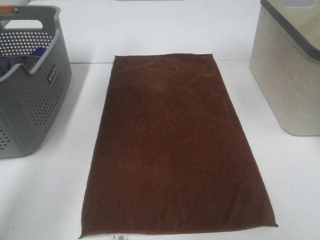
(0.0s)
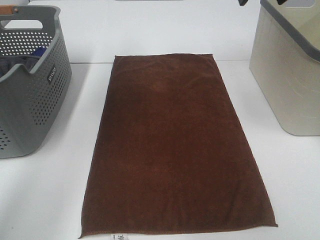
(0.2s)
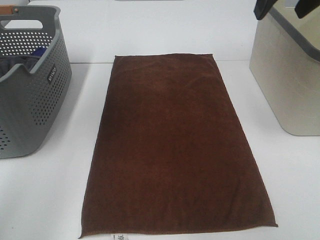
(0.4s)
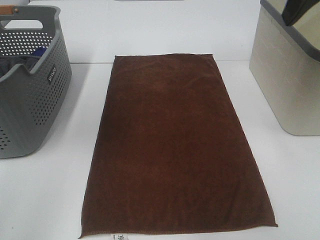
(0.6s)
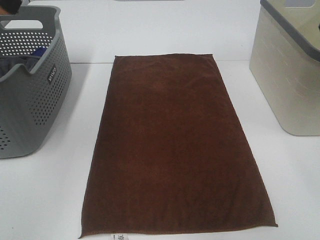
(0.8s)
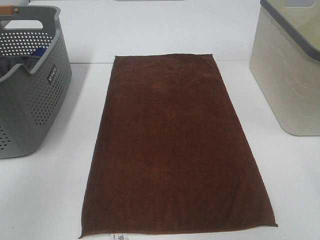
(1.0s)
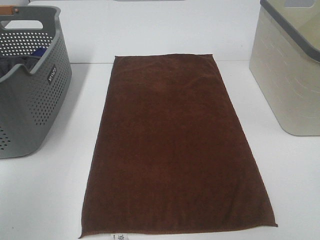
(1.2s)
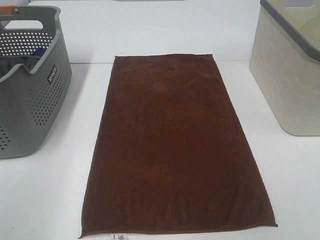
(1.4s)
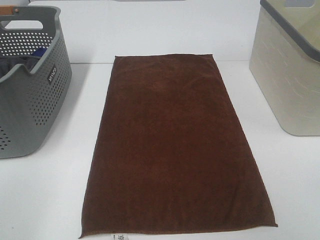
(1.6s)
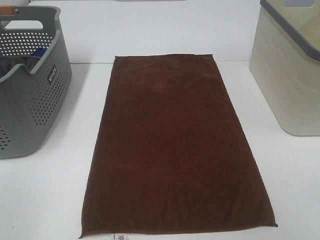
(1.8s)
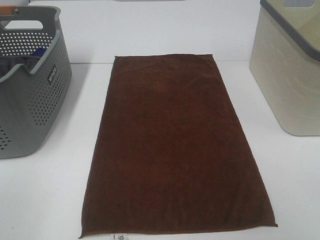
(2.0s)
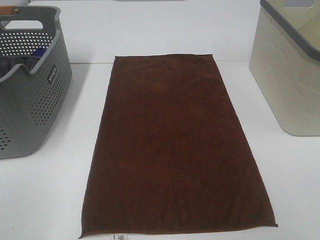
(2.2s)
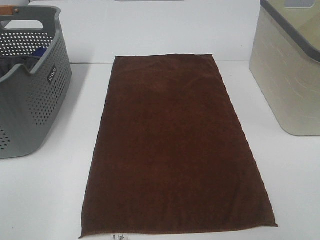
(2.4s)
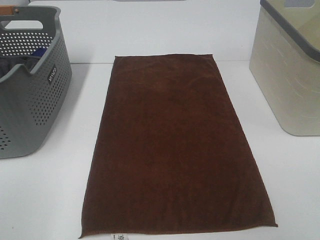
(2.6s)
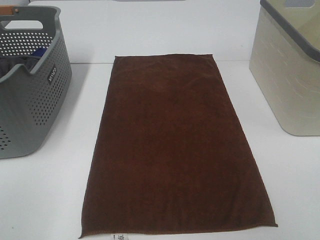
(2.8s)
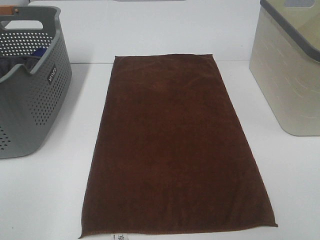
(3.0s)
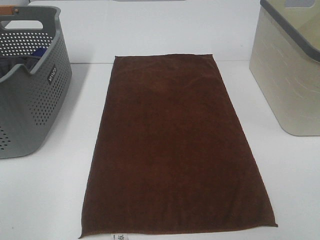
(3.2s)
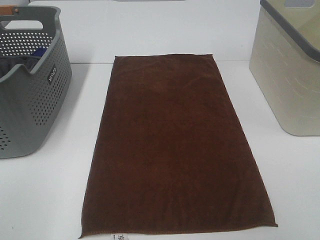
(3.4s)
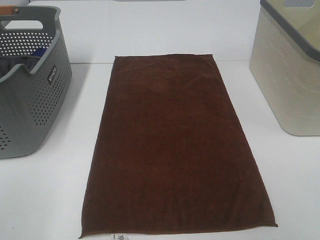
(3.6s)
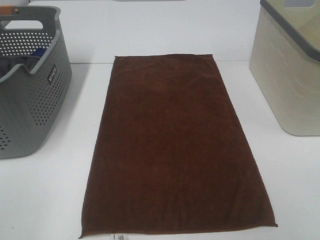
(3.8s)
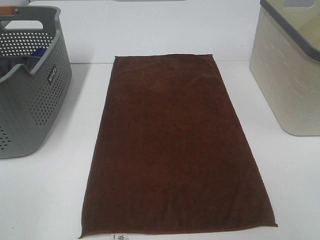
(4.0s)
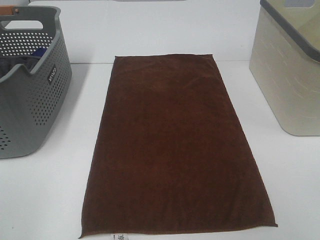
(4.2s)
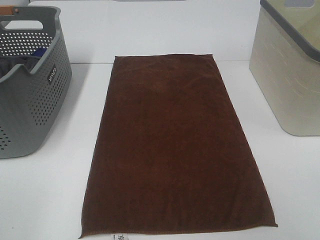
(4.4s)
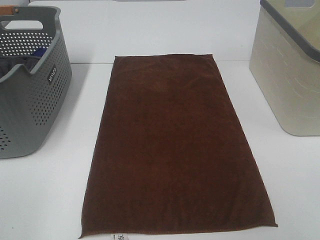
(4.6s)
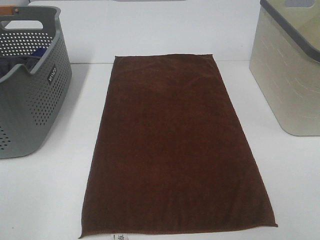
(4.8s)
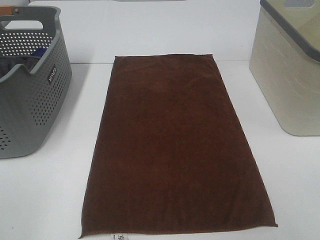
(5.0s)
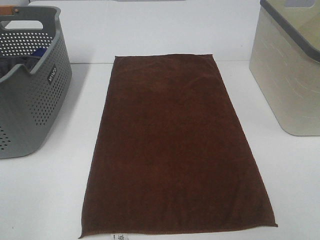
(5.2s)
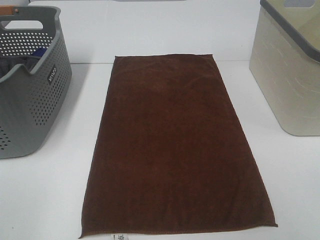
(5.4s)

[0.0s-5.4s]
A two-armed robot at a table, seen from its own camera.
Task of the whole recording: Remove the towel and place it.
0.0s to 1.4s: The left gripper heads backward, covering some 35 cm.
4.0s to 5.4s: Both grippers stay about where they are.

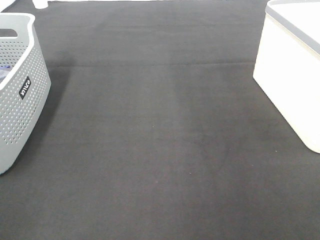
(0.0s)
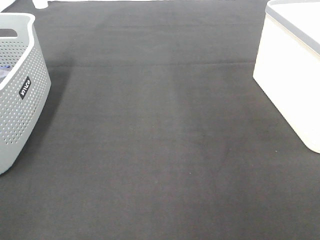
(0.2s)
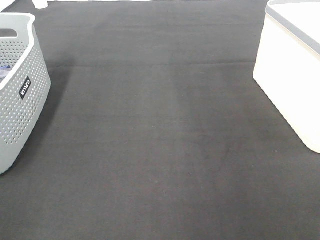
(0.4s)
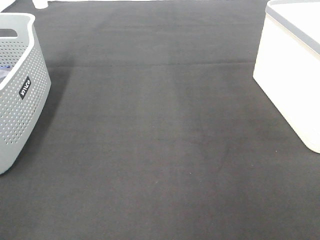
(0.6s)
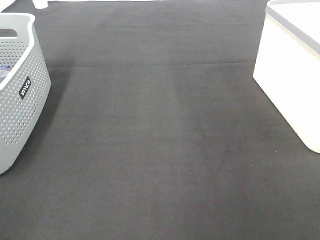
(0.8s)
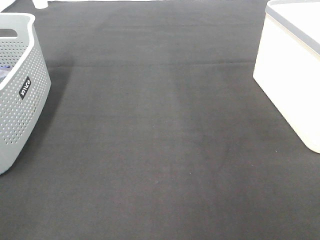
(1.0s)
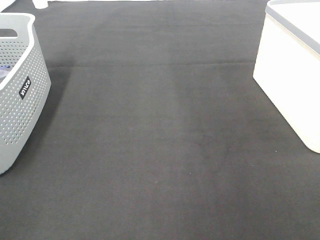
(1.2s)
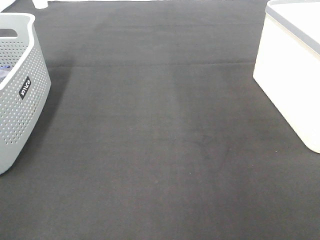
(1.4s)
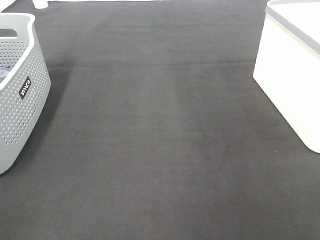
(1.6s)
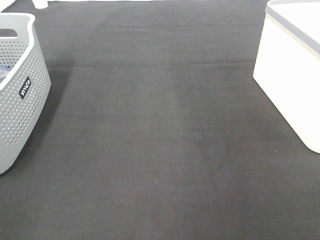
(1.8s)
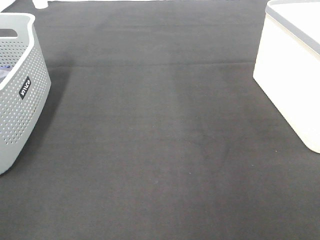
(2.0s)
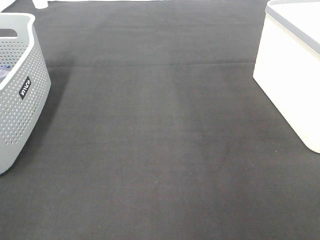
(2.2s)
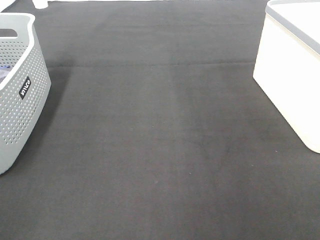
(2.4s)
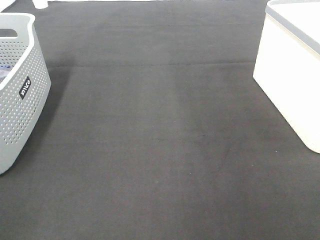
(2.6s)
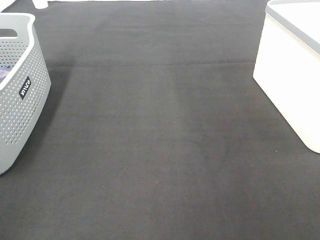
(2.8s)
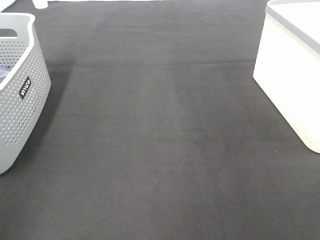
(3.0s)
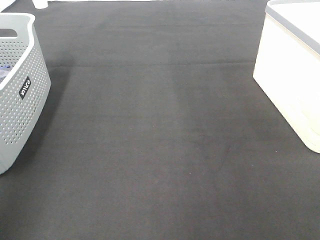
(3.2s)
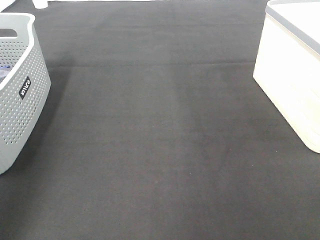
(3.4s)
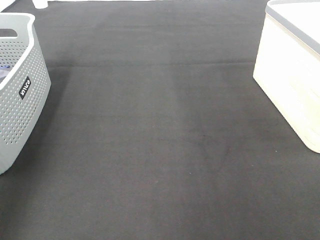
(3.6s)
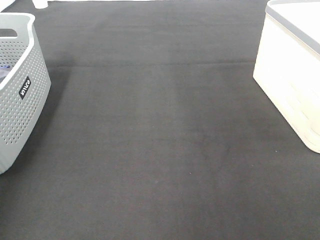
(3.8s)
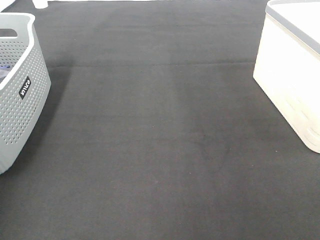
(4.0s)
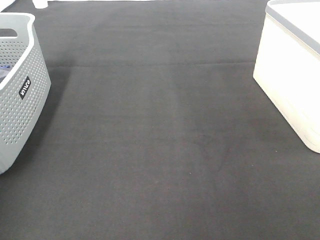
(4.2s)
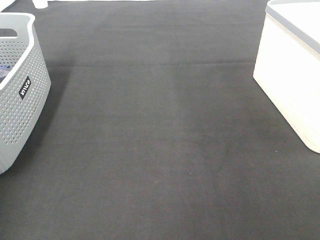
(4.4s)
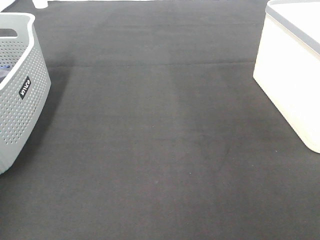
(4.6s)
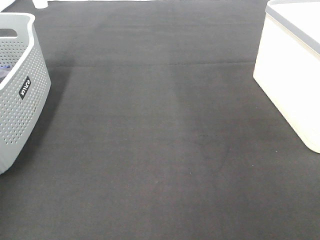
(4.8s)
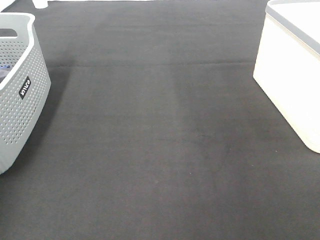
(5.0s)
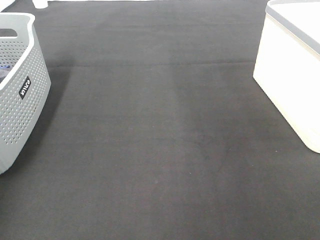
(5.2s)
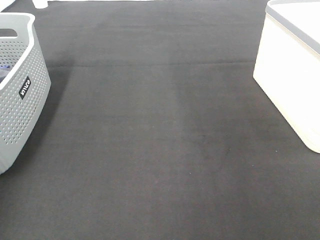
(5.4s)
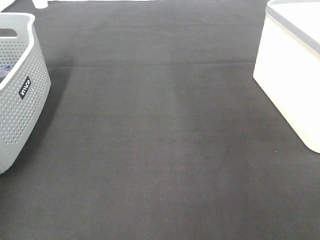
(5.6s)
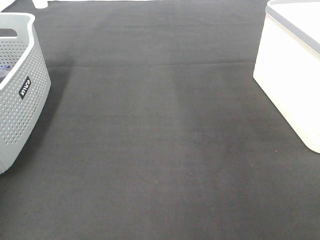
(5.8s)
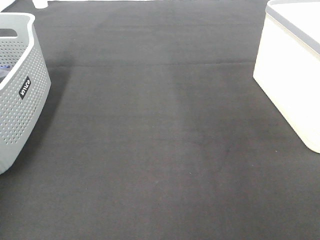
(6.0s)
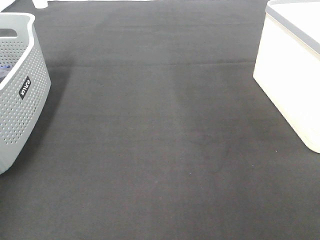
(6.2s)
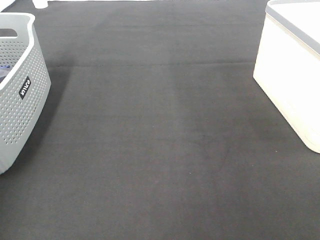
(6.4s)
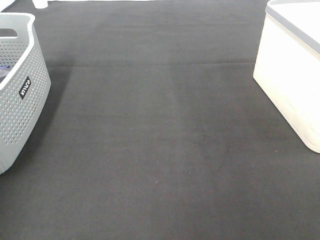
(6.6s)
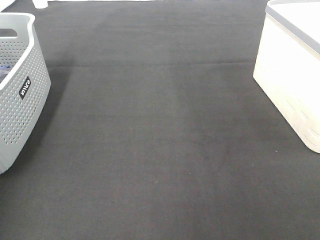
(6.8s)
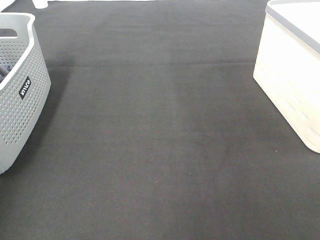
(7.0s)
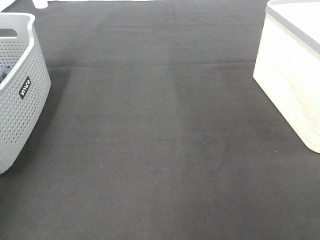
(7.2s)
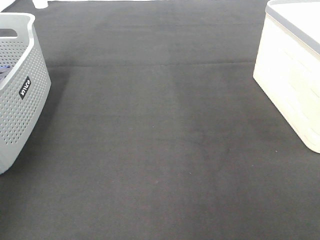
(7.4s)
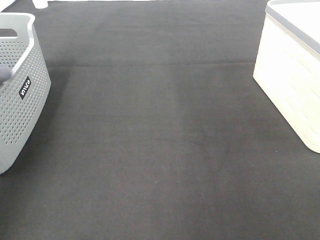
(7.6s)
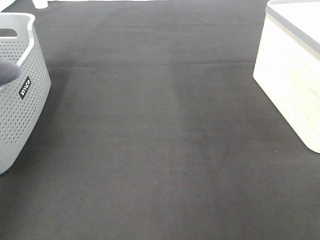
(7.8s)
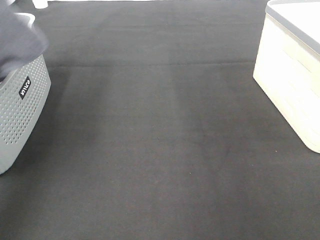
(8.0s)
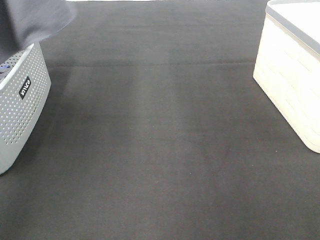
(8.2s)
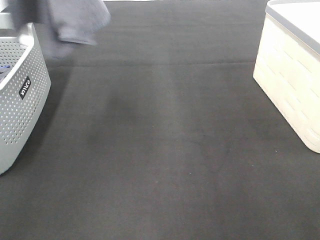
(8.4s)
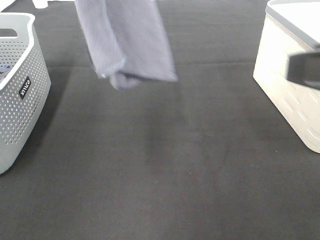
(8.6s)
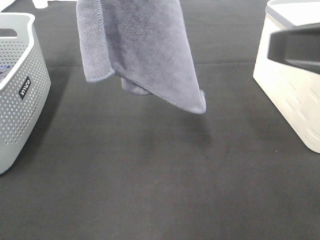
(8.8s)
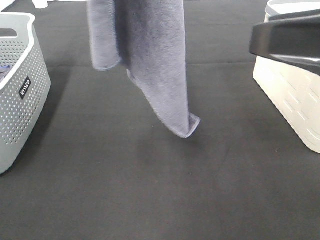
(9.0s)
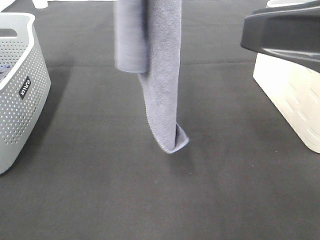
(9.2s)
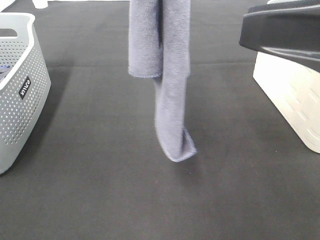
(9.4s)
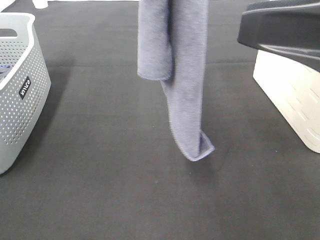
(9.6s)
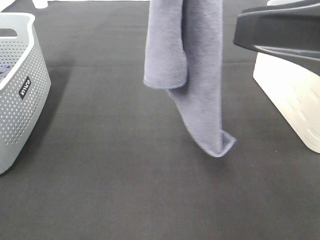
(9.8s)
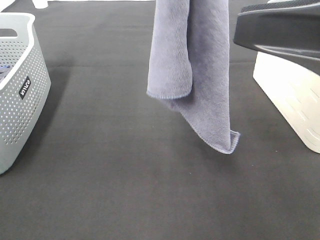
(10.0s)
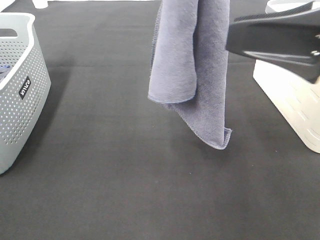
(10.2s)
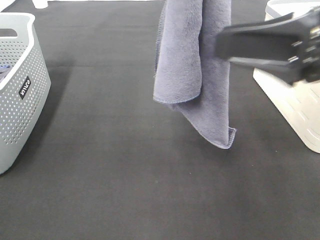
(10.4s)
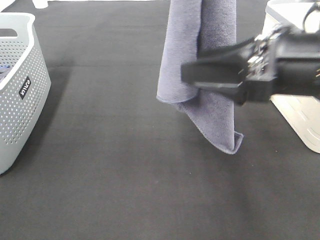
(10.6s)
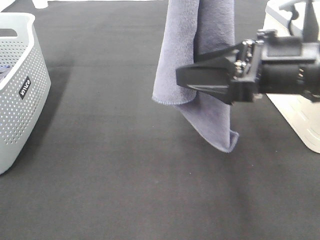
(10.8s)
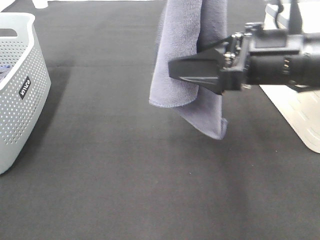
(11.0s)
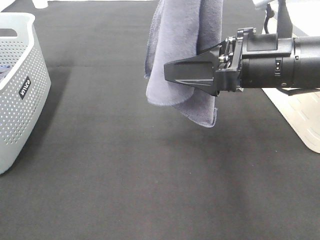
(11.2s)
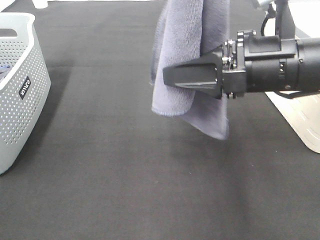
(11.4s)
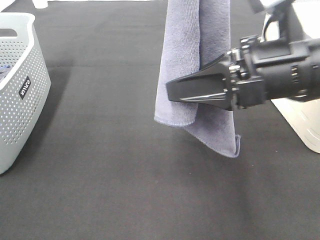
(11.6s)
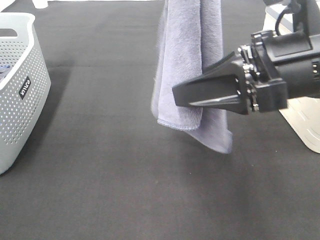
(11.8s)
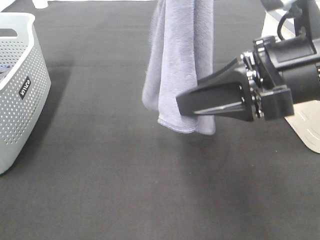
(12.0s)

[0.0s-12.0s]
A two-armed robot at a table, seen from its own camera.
Task of the whole recording: Remove the towel and place it.
Step, 7.6s to 11.0s: Right hand: grab a corner of the grey towel and straighten it.
0.0s to 1.6s: The two grippers keep their place.
7.6s to 9.0s: The left gripper moves to the right, approximately 25 cm. Meanwhile the right gripper heads forward and to the left, covering some 15 cm.
9.0s to 10.4s: The right gripper changes place by about 5 cm. Meanwhile the left gripper heads to the right, covering roughly 5 cm.
10.4s to 12.0s: The right gripper closes its fingers.

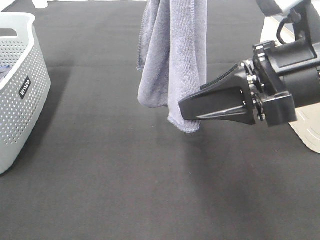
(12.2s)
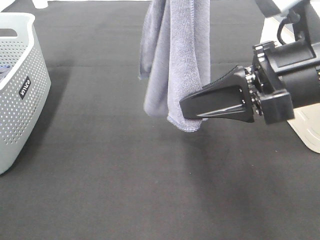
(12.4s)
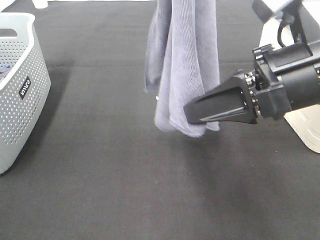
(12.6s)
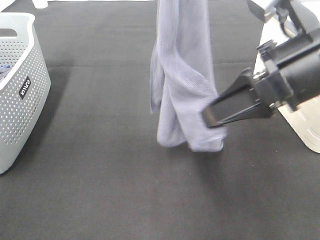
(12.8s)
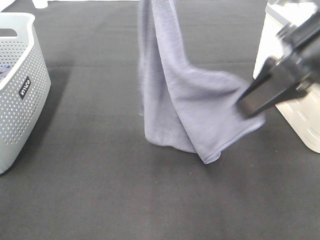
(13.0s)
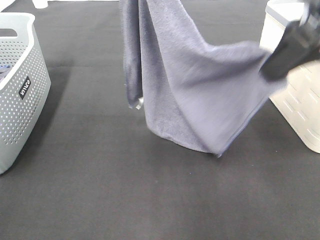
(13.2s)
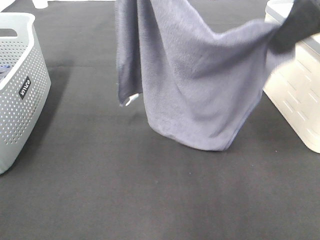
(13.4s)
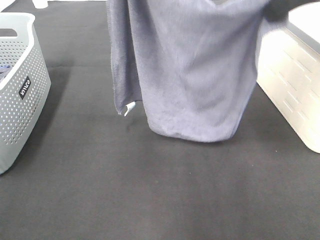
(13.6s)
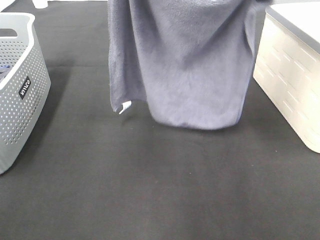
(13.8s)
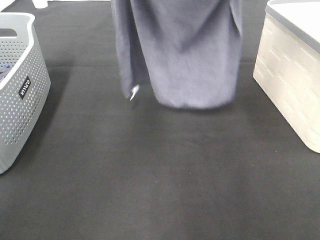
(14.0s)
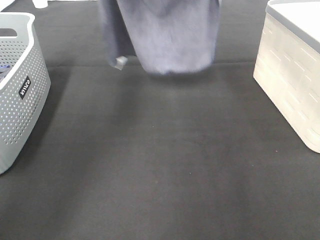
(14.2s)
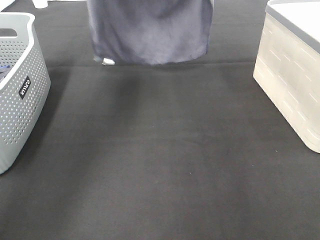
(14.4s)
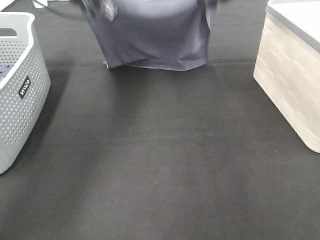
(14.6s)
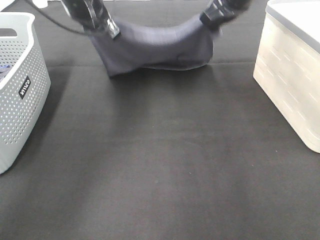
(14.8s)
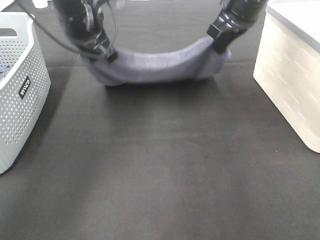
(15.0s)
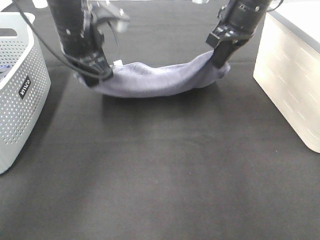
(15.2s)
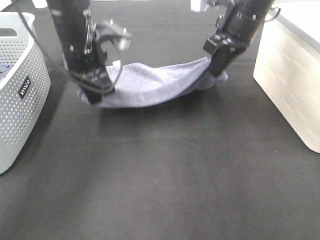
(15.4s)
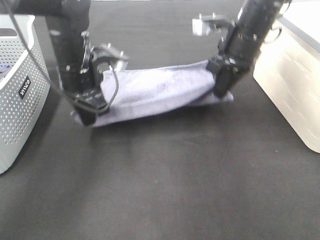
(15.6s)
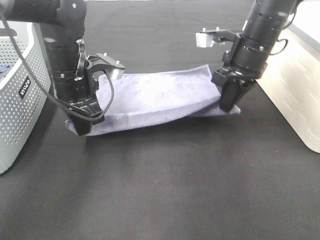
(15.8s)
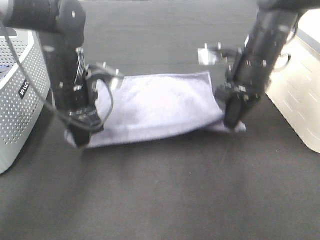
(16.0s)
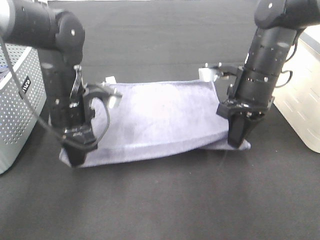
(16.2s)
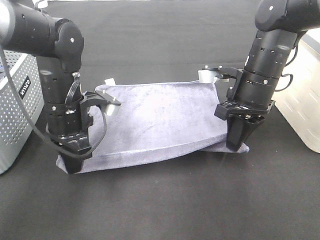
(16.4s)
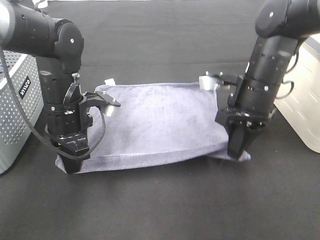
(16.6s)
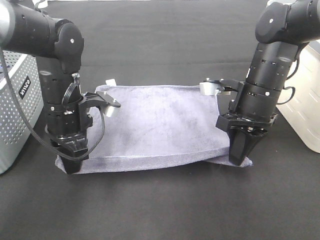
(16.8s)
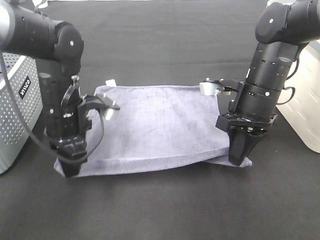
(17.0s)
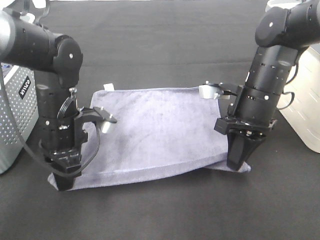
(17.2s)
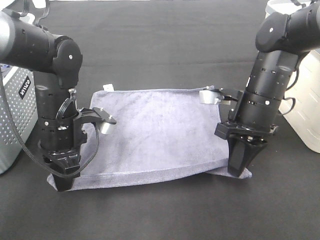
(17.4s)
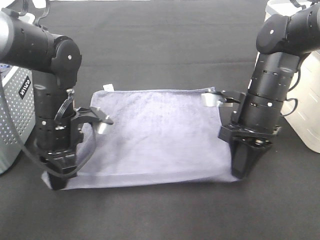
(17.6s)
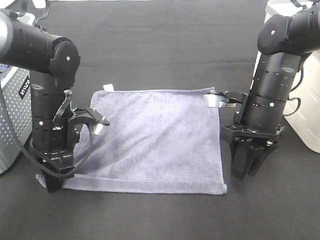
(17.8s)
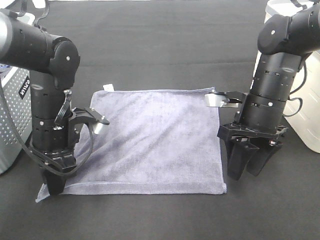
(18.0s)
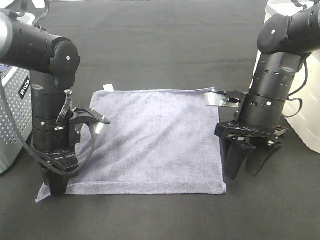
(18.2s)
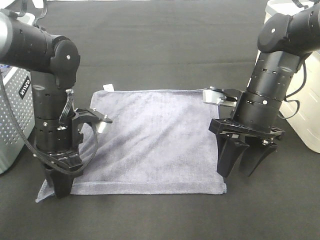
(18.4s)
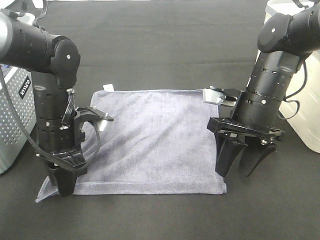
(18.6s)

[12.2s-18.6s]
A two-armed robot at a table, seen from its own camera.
Task of the whole recording: Remove the towel and place it.
Step, 12.2s to 14.2s: Right hand: spread the grey towel flat on the table.
Step, 12.2s to 14.4s: Left hand: spread the grey towel flat on the table.
Step, 14.6s to 16.0s: Left hand:adjust the gray towel.
12.2s to 13.8s: The right gripper is displaced forward and upward by roughly 20 cm, while the left gripper travels downward and forward by approximately 10 cm.
13.8s to 15.4s: The left gripper is displaced downward by roughly 20 cm; the right gripper goes approximately 15 cm downward and forward.
15.4s to 17.0s: The two grippers go some 10 cm backward and downward.
17.0s to 18.6s: The left gripper opens. Meanwhile the right gripper opens.
